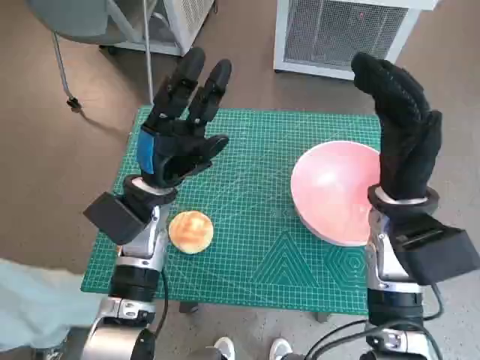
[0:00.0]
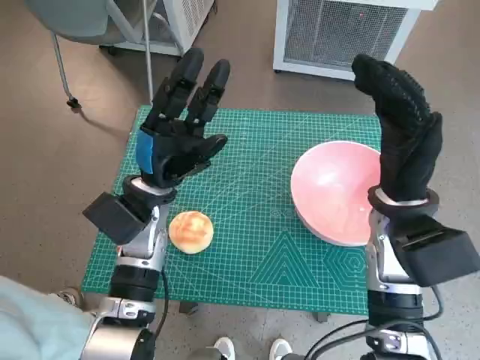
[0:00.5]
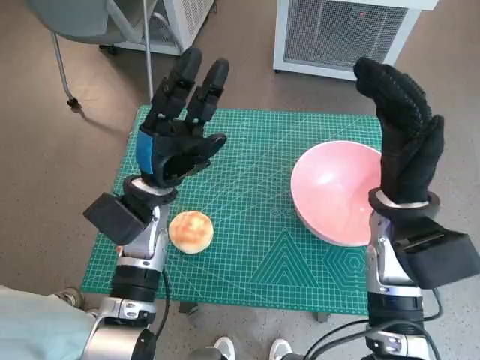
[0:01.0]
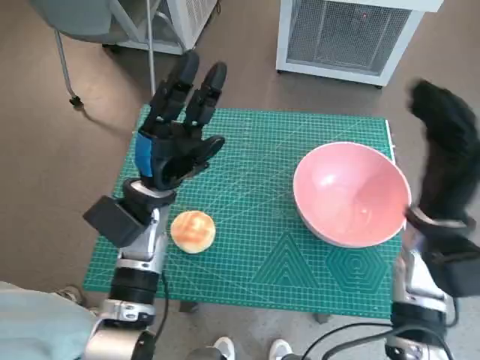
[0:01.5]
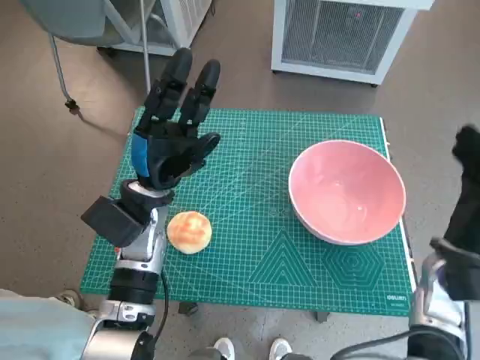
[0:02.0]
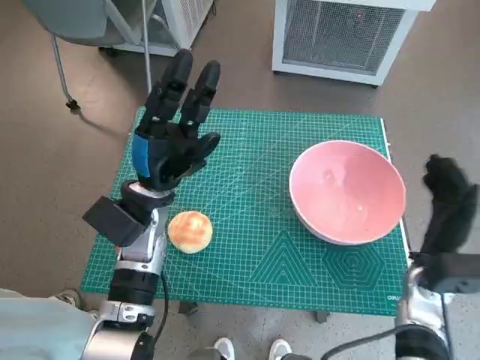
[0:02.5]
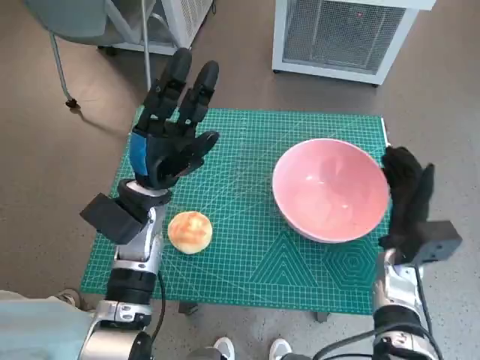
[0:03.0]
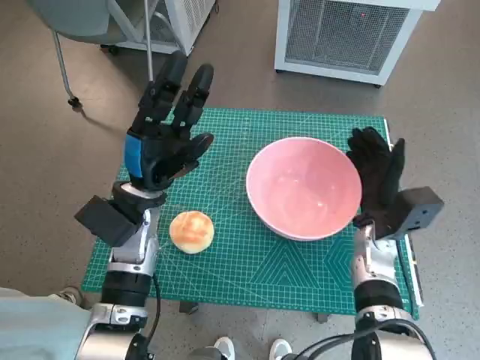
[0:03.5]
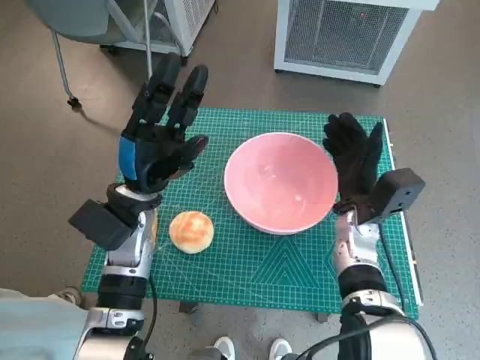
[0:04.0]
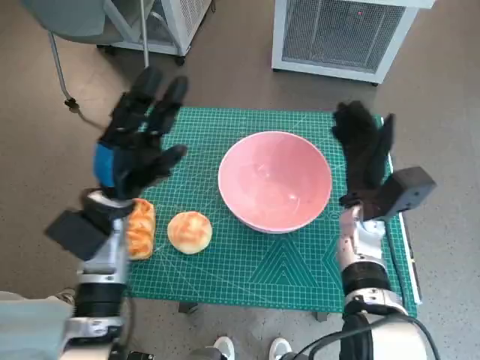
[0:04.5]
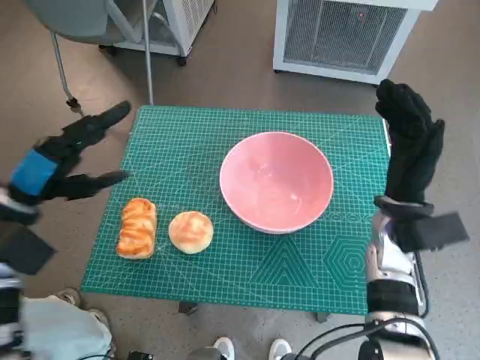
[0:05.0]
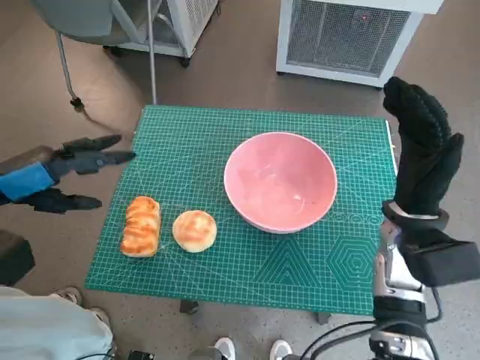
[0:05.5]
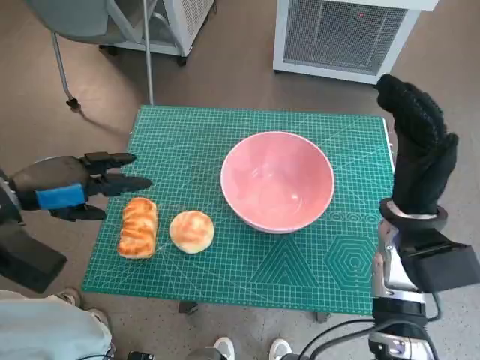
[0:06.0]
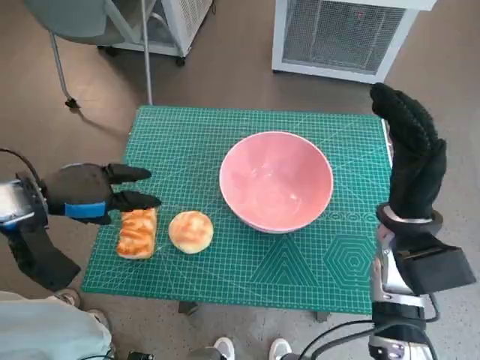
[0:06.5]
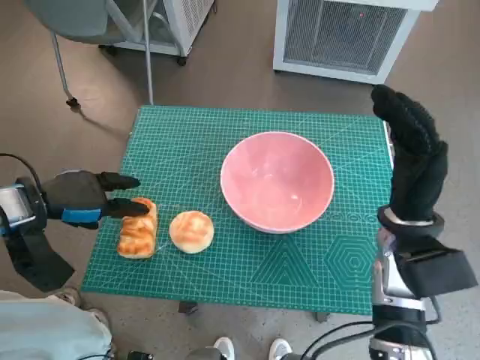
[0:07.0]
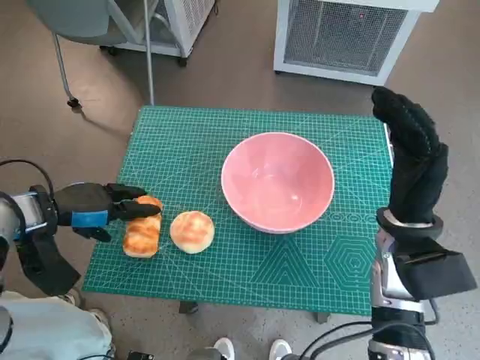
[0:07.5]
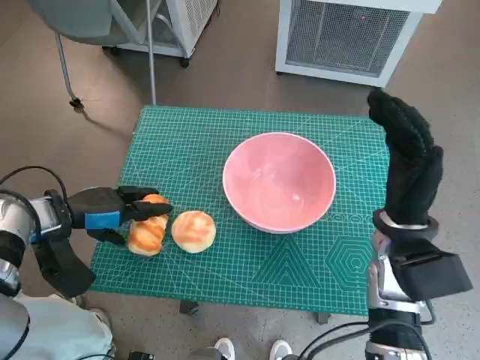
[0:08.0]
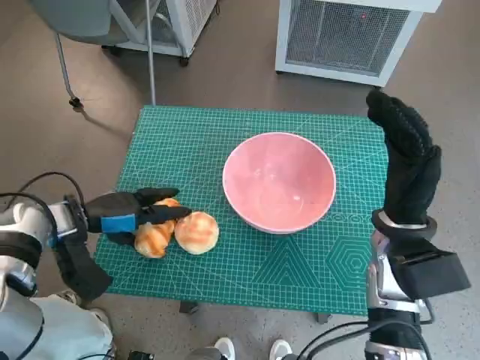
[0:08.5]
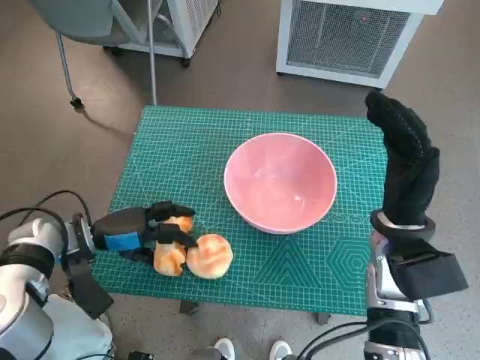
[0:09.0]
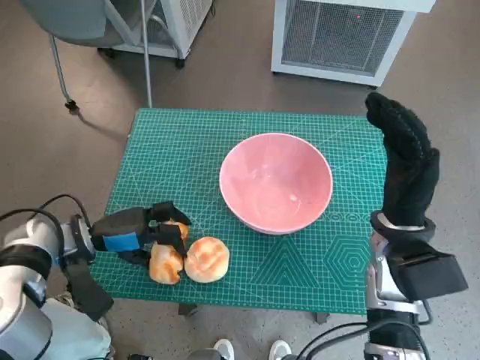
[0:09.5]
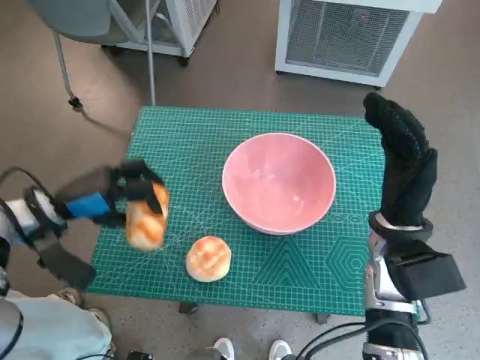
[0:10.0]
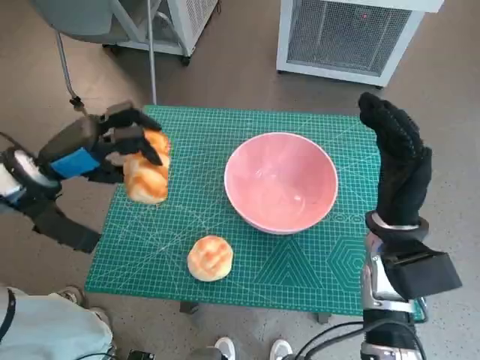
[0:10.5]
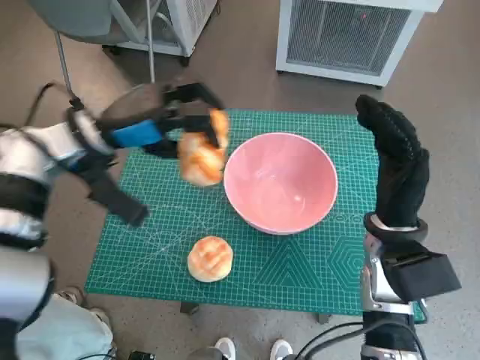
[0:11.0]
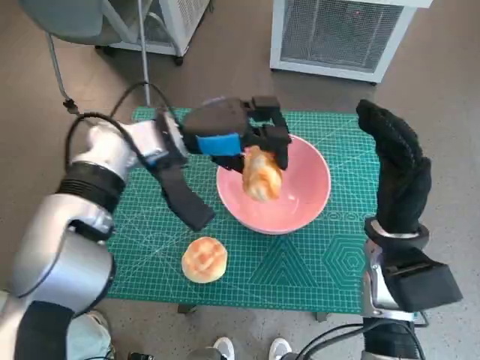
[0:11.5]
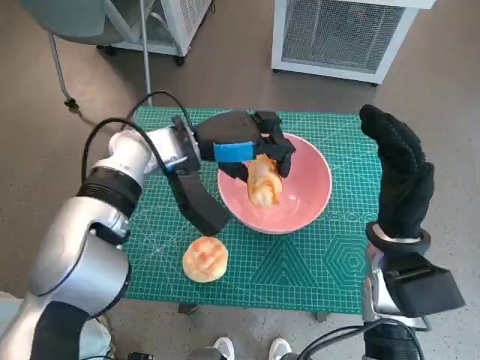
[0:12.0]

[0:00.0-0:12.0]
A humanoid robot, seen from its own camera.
Task of the whole recording: Push the bowl to the center of the table and put the bread into the bowl.
Step, 0:00.0 to 0:04.5: Move the pink bowl to the center of table with right hand.
Step, 0:05.0 to 0:09.0: Grasp the long bread with left hand.
0:02.0 to 0:04.0: The right hand travels to the left and forward by roughly 10 cm.
0:04.0 to 0:06.0: The right hand goes approximately 10 cm upward. Meanwhile the left hand travels to the left and upward by roughly 15 cm.
0:06.0 to 0:08.0: The left hand goes some 10 cm downward.
0:10.0 to 0:12.0: The left hand goes roughly 20 cm to the right and forward.

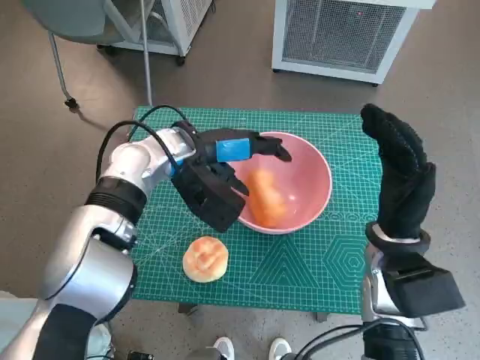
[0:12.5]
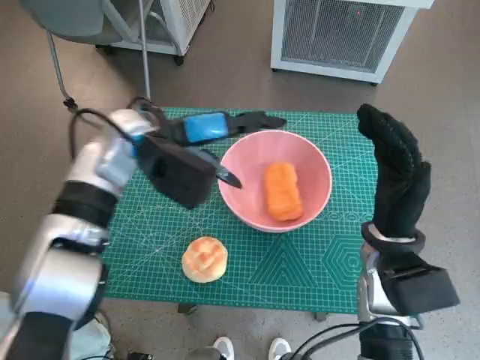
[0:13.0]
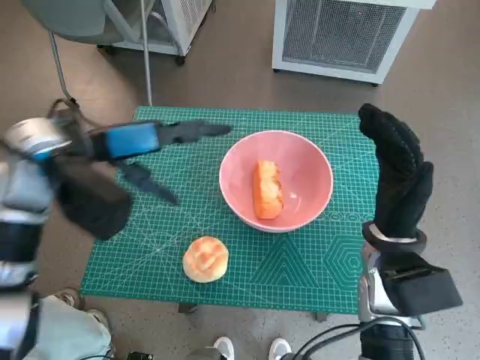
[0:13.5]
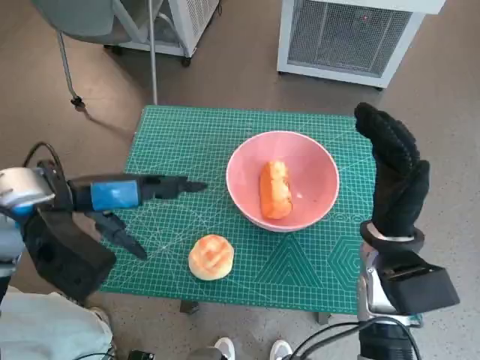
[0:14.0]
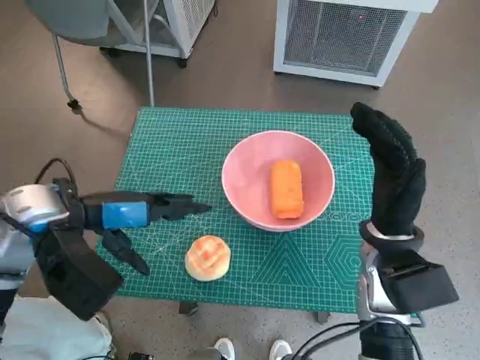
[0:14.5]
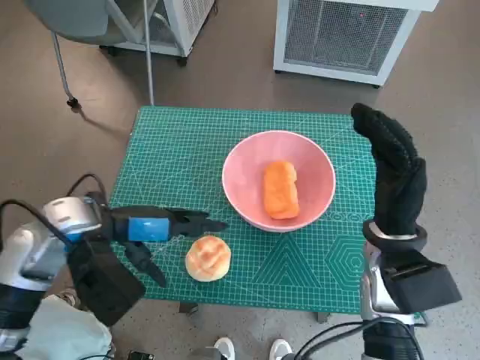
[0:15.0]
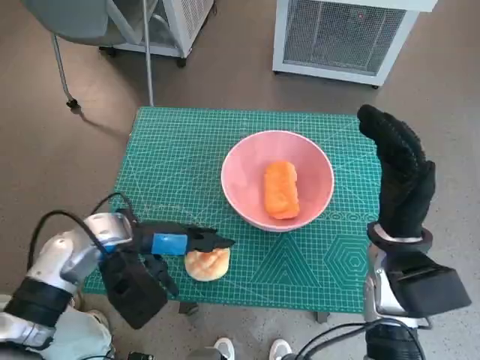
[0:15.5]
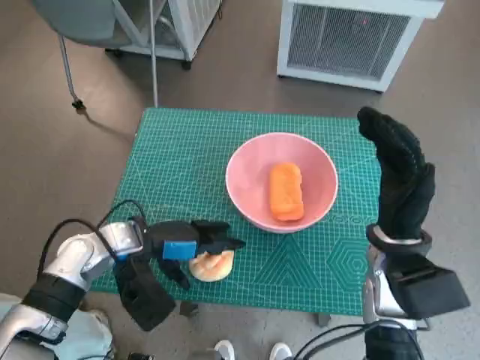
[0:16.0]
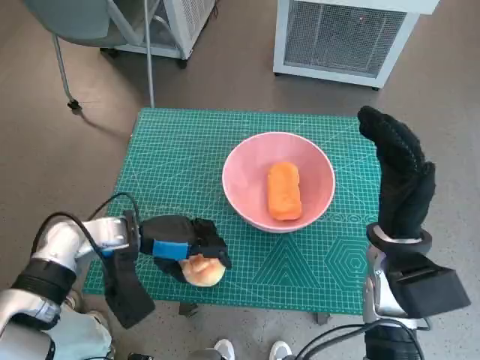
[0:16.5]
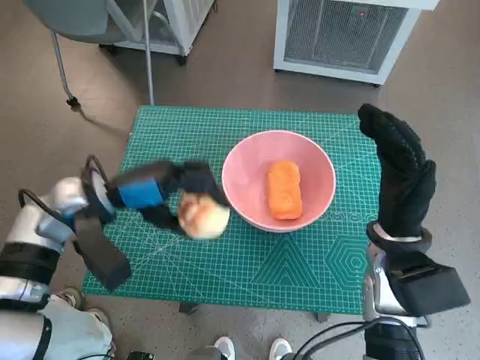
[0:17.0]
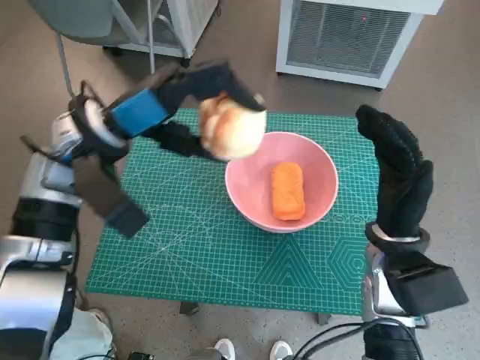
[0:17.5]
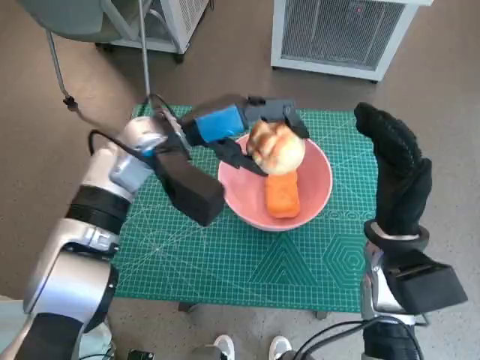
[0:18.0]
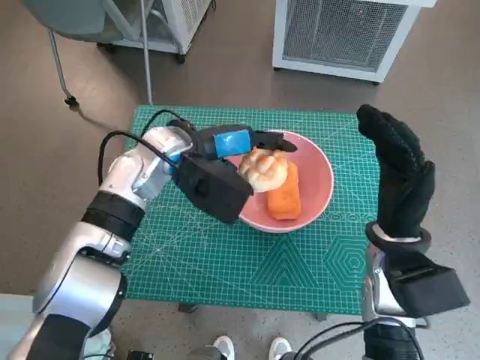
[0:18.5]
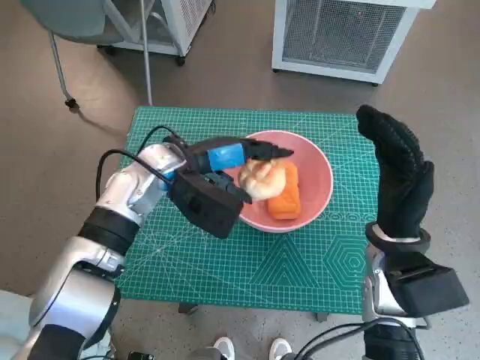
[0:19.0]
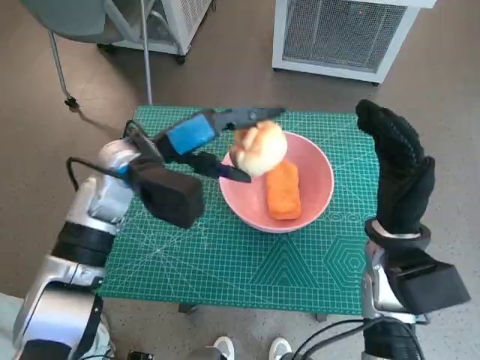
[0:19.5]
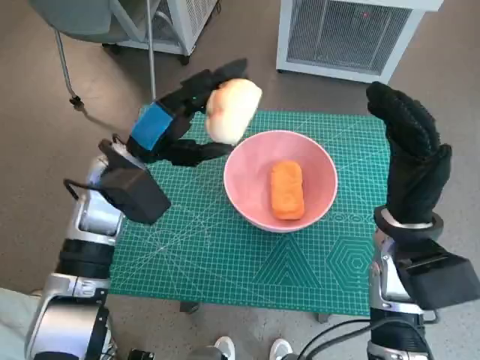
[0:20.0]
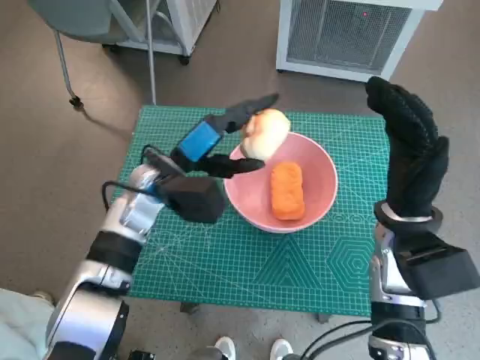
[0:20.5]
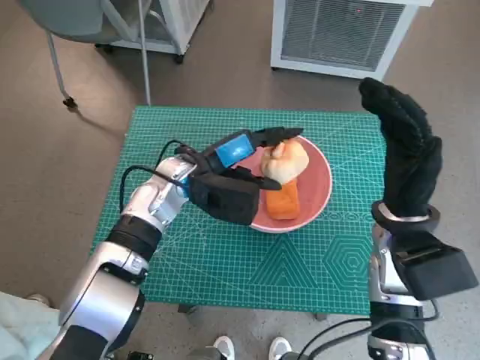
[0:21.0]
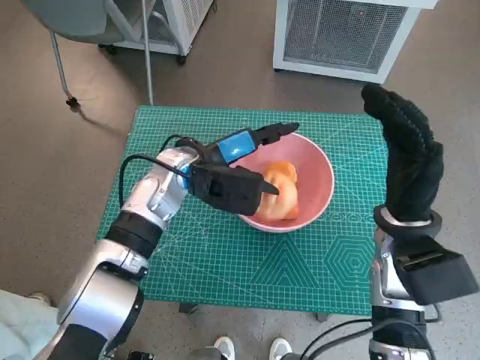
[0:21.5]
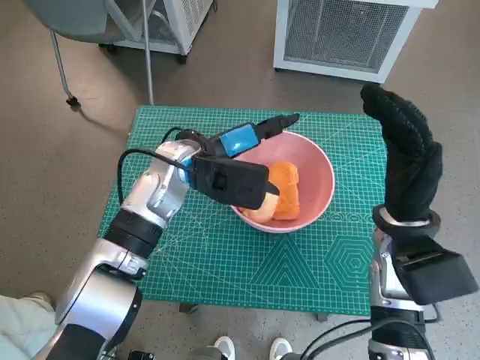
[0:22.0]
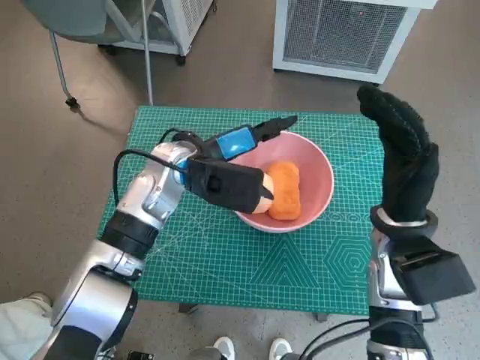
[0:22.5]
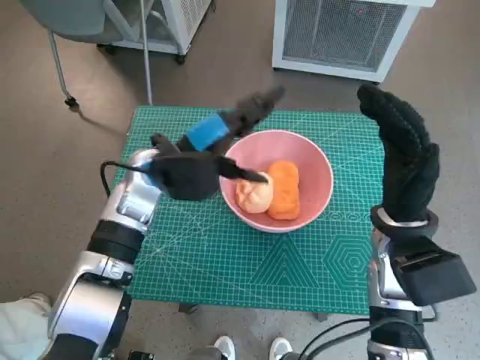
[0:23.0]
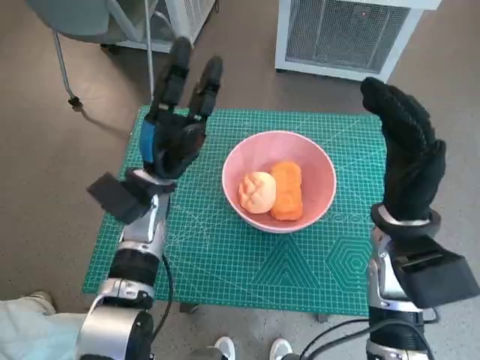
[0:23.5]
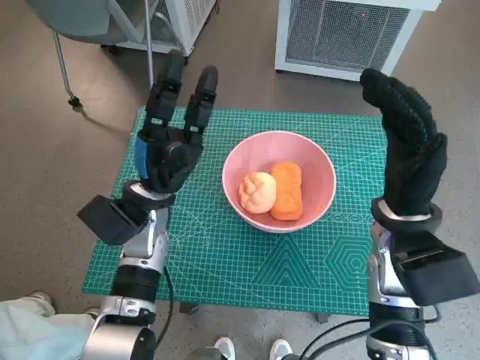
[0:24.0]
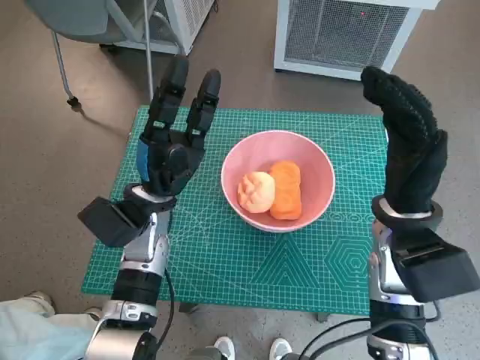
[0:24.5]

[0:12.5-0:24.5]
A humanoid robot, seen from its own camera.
Task of the whole recording: Push the bowl to the center of the table and put the bread into the bowl.
Step, 0:13.0 to 0:16.0: Grasp the round bread with left hand.
Step, 0:16.5 to 0:22.0: Place the round bread in pink bowl with left hand.
0:12.5 to 0:14.5: The left hand is displaced to the left and backward by some 15 cm.
0:14.5 to 0:16.5: The left hand goes roughly 10 cm downward.
0:16.5 to 0:18.5: The left hand travels upward, to the right and forward by roughly 15 cm.
0:18.5 to 0:20.5: The left hand shifts by some 5 cm.
0:20.5 to 0:22.5: The left hand changes place by approximately 5 cm.
0:22.5 to 0:24.5: The left hand moves downward and to the left, approximately 10 cm.
